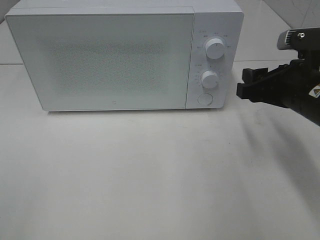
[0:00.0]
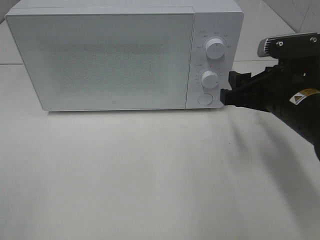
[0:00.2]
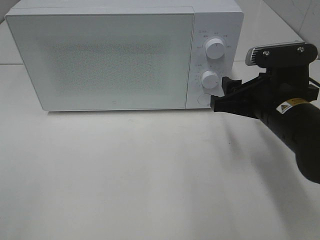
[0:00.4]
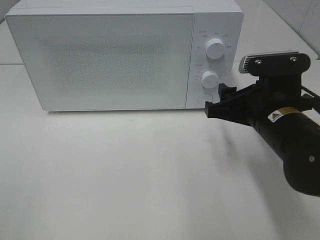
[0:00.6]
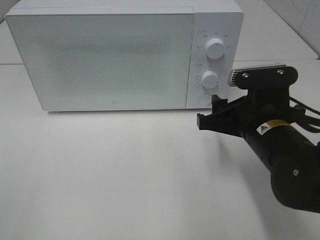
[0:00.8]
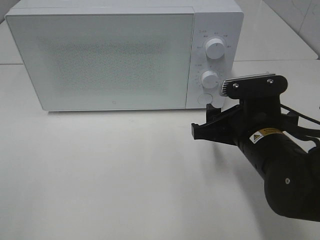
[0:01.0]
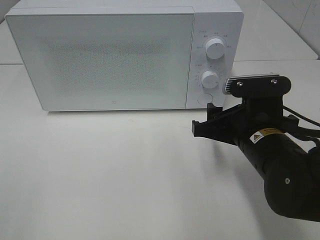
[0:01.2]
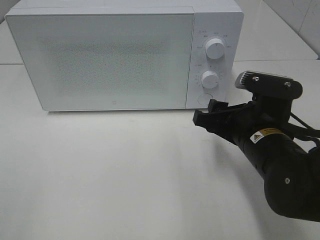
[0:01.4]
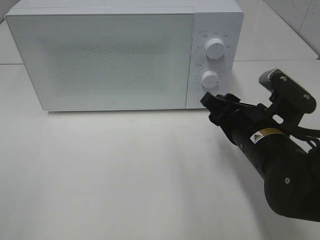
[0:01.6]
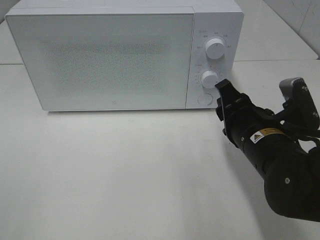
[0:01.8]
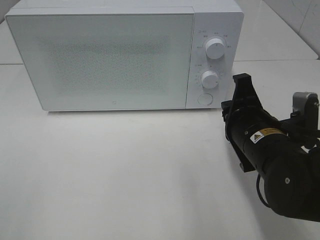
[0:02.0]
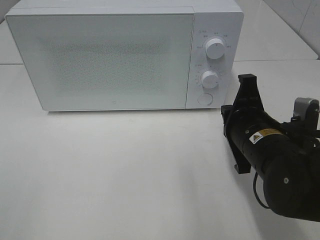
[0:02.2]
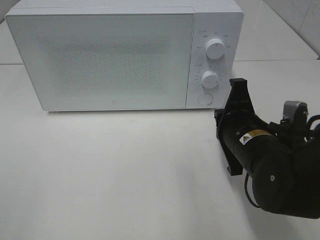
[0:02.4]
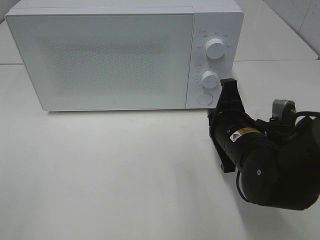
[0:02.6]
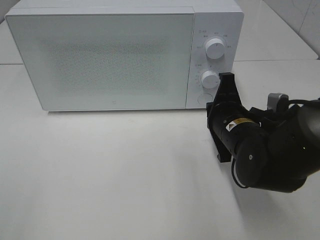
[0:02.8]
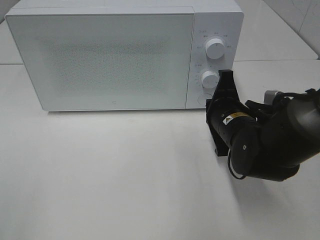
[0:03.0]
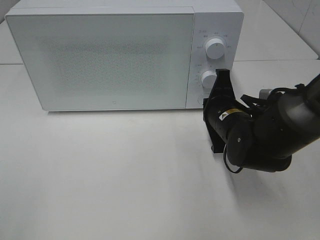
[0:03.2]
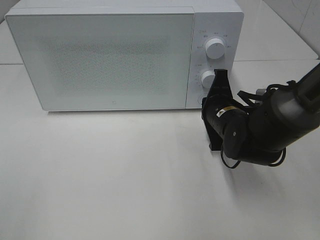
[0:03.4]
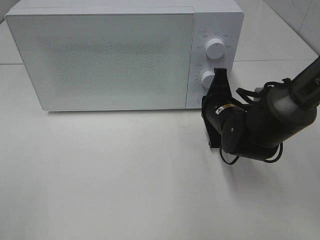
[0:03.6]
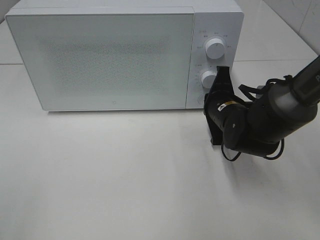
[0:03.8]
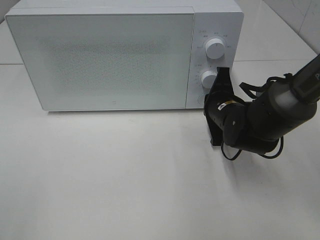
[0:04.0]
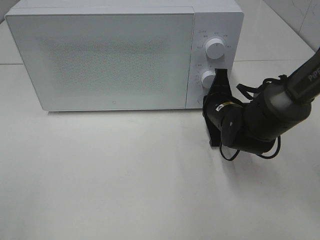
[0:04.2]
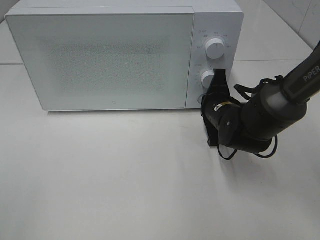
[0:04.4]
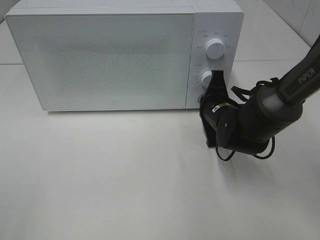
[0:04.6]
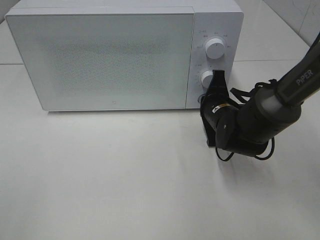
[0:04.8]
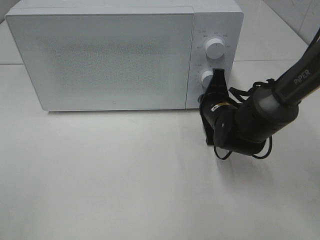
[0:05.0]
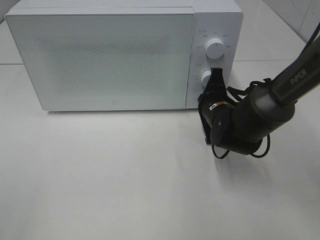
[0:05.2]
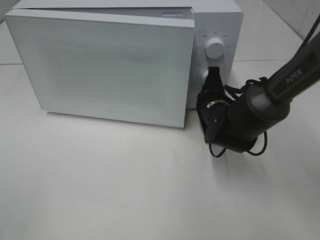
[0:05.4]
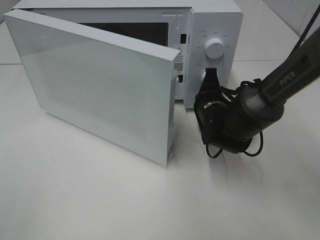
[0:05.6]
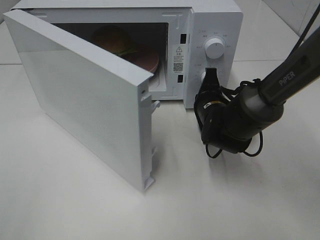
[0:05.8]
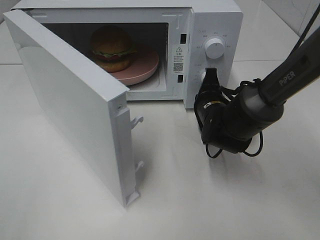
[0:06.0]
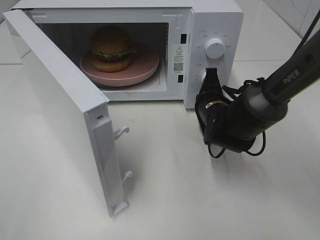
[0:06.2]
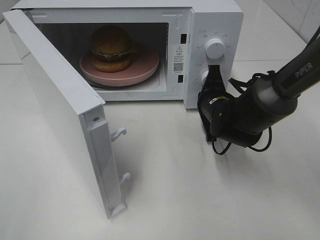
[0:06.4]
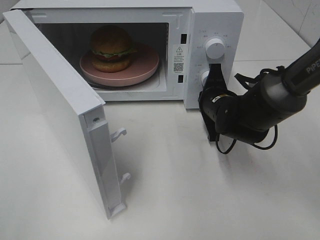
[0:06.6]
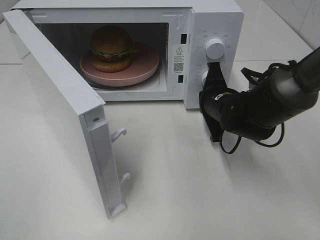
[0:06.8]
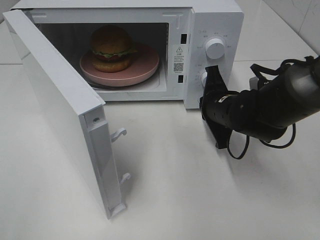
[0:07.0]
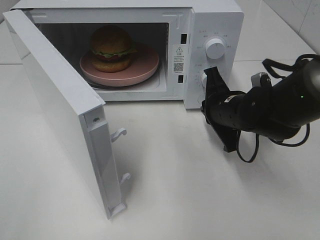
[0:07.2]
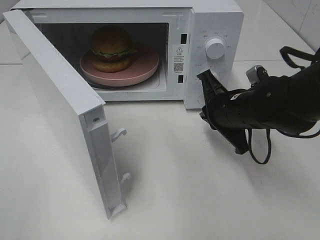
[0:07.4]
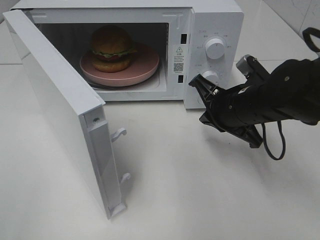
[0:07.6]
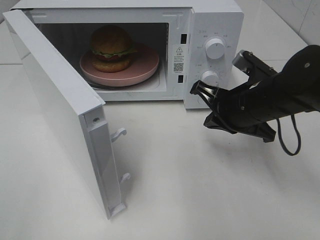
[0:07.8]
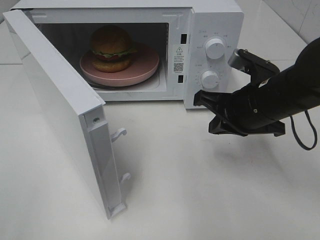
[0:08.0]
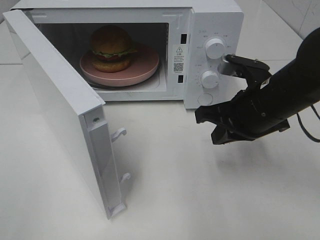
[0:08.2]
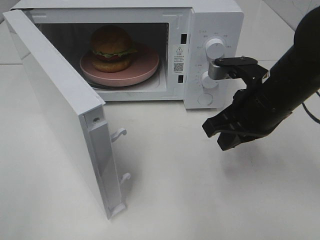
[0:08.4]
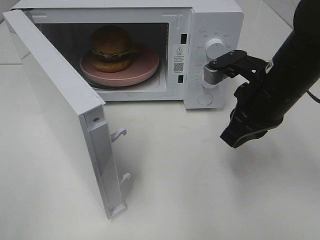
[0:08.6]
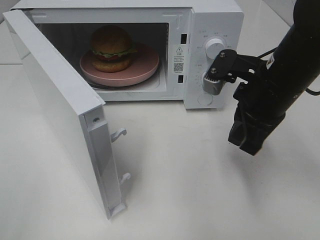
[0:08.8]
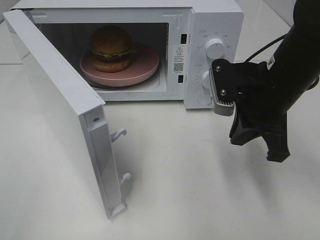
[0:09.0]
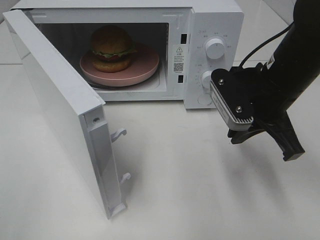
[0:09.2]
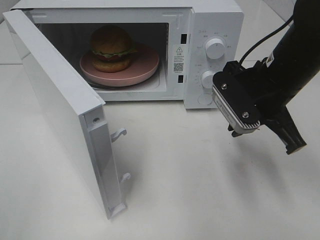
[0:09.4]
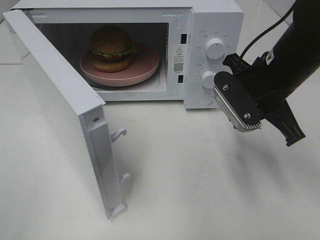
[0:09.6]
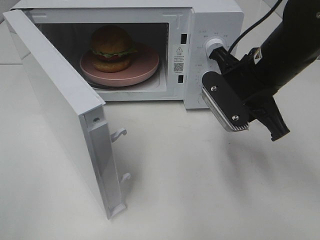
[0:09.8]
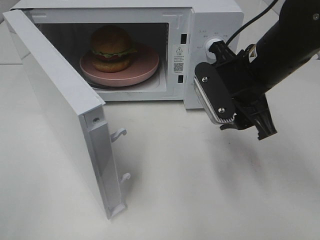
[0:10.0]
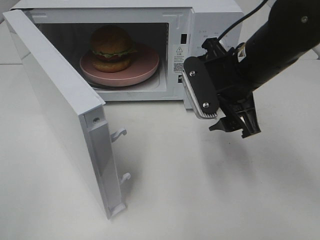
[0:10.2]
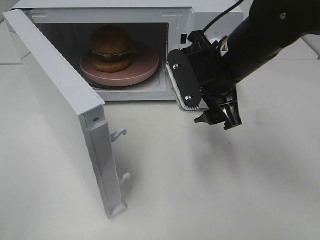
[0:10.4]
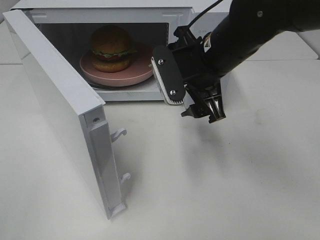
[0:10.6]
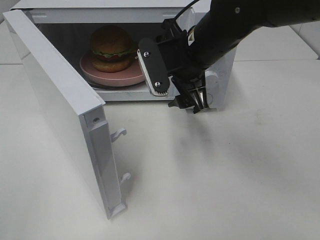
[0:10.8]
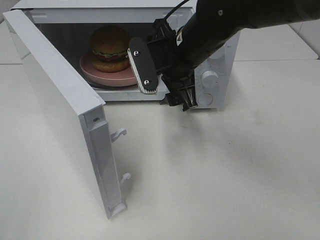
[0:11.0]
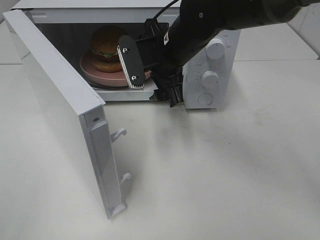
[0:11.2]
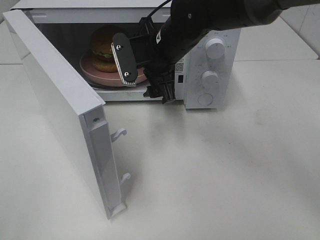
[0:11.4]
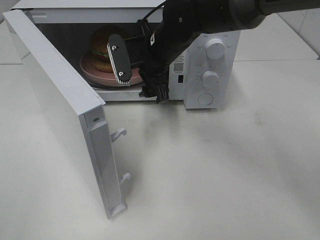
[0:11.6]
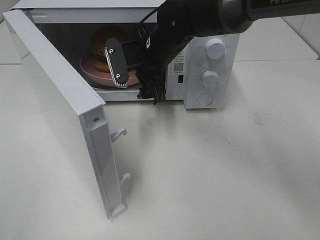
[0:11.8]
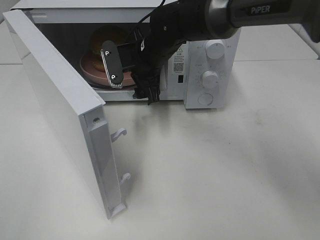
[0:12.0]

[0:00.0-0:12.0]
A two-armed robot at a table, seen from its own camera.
Task of the whole recording: Heat the burger.
Step, 0:00.0 to 0:06.8: Right hand: press the switch.
0:00.0 to 0:01.6: The right gripper travels to the left by roughly 5 cm.
0:01.6 to 0:03.0: The right gripper heads forward, covering about 5 cm, and closes up.
0:03.0 to 0:04.4: The right gripper is displaced forward by some 5 cm.
0:06.0 to 0:07.6: The right gripper is displaced upward and backward by some 10 cm.
0:07.6 to 0:09.0: The right gripper shifts some 5 cm upward.
0:09.0 to 0:10.4: The right gripper goes about 5 cm to the left, and opens up.
0:10.4 to 0:12.0: The right gripper travels forward, to the left and downward by approximately 15 cm.

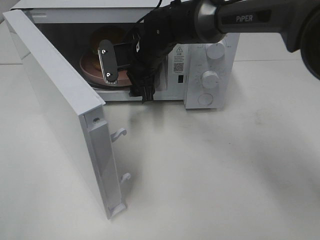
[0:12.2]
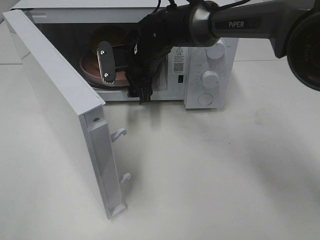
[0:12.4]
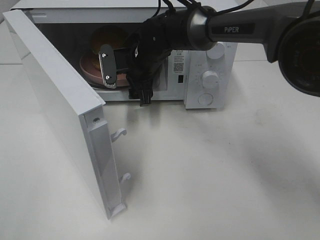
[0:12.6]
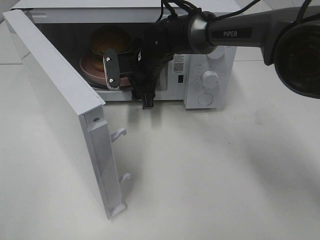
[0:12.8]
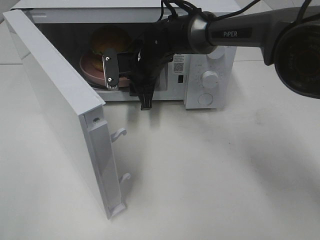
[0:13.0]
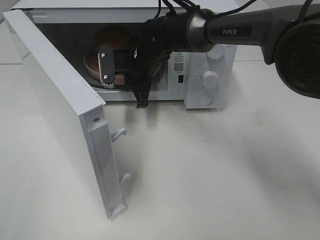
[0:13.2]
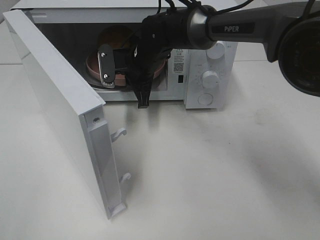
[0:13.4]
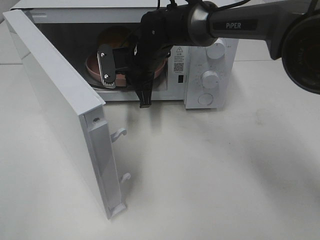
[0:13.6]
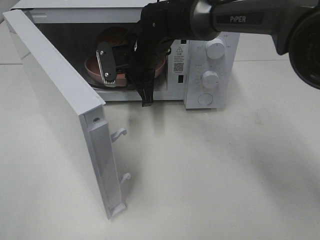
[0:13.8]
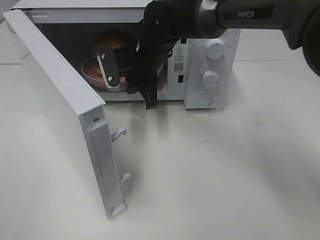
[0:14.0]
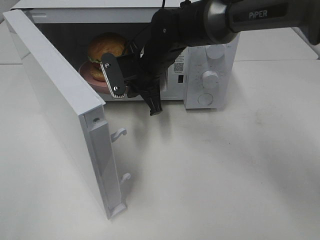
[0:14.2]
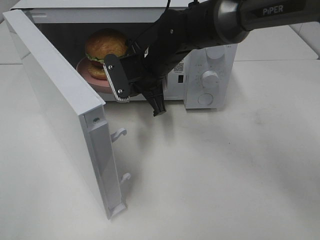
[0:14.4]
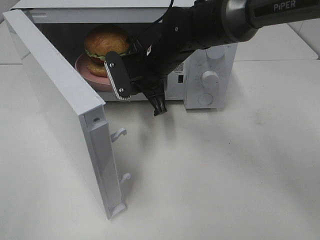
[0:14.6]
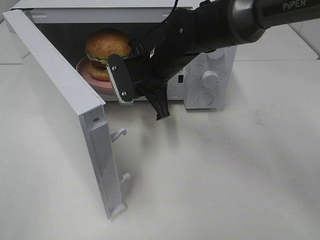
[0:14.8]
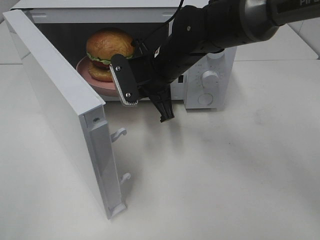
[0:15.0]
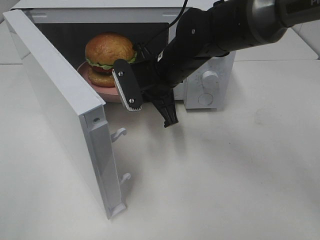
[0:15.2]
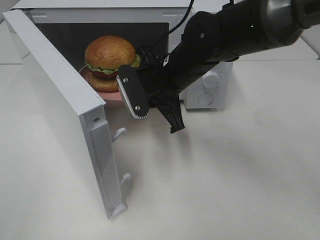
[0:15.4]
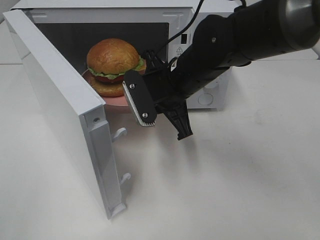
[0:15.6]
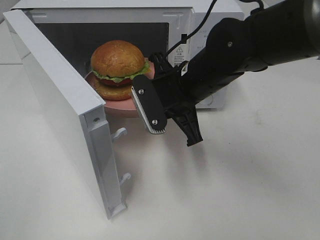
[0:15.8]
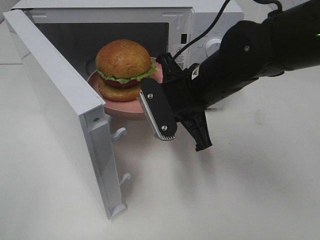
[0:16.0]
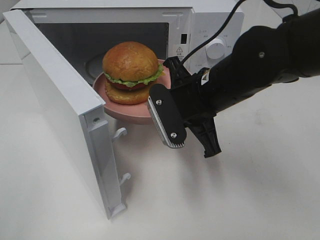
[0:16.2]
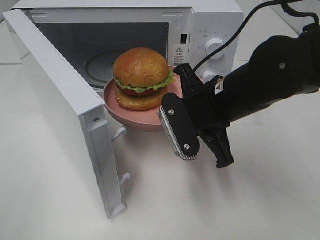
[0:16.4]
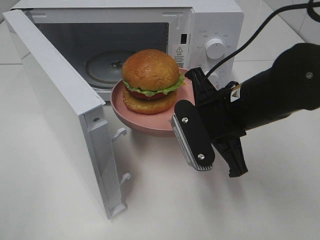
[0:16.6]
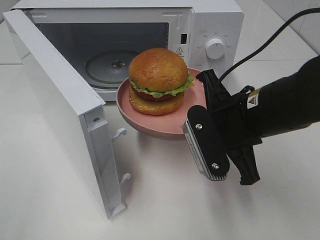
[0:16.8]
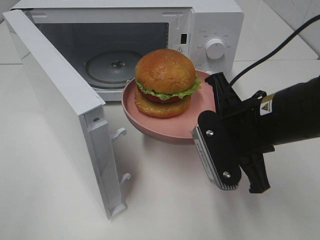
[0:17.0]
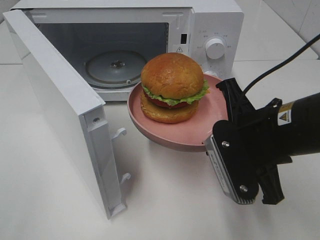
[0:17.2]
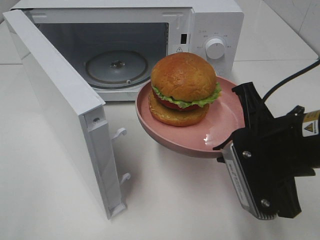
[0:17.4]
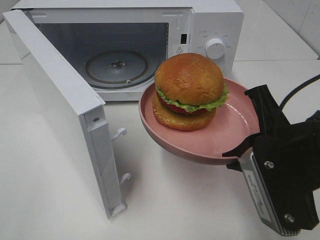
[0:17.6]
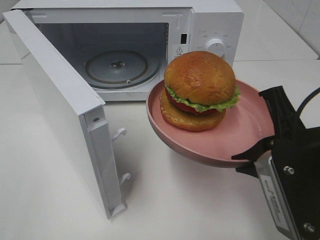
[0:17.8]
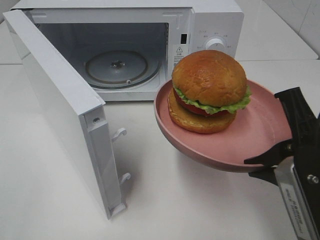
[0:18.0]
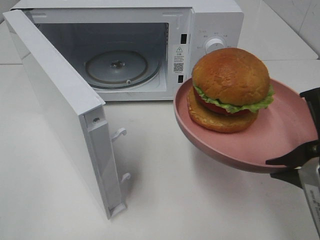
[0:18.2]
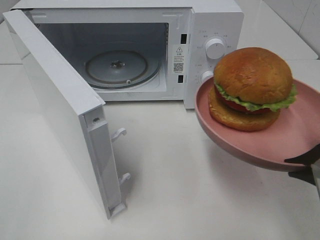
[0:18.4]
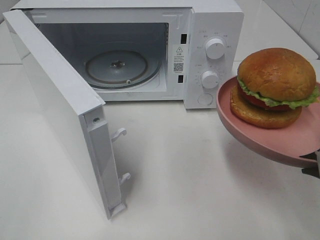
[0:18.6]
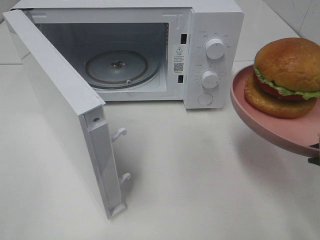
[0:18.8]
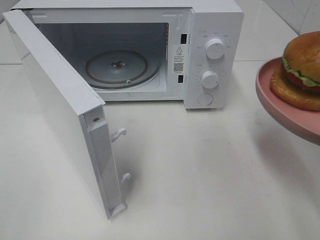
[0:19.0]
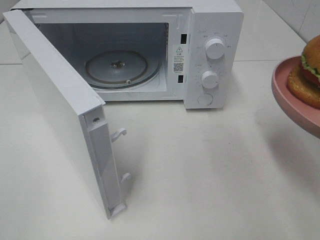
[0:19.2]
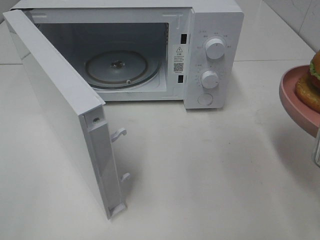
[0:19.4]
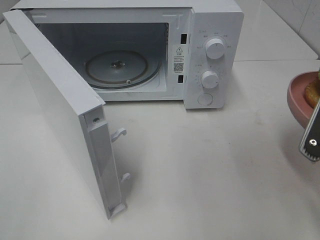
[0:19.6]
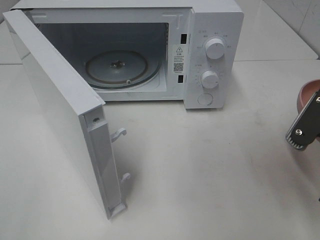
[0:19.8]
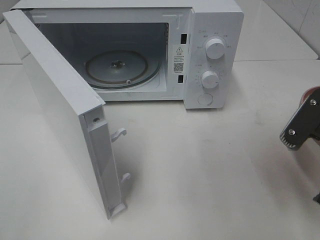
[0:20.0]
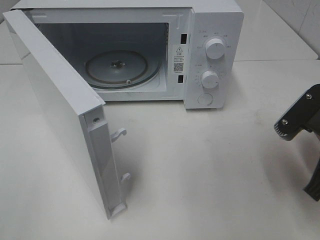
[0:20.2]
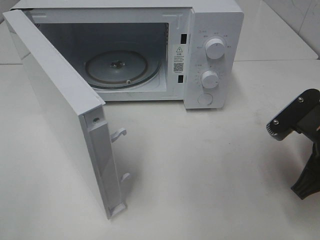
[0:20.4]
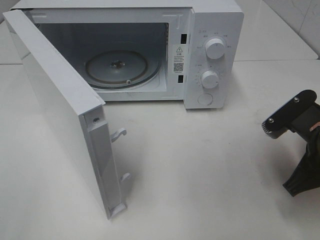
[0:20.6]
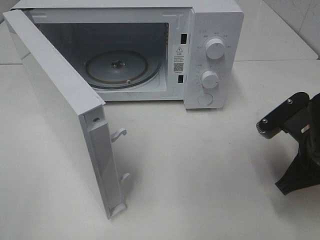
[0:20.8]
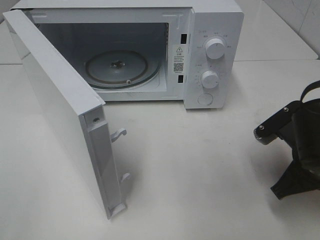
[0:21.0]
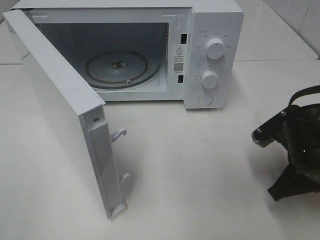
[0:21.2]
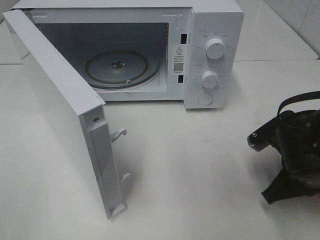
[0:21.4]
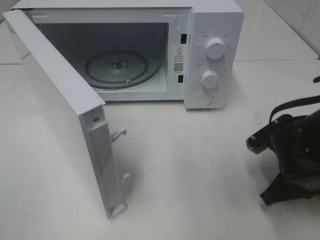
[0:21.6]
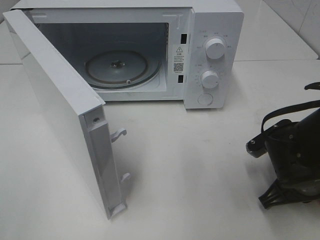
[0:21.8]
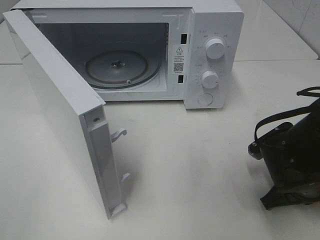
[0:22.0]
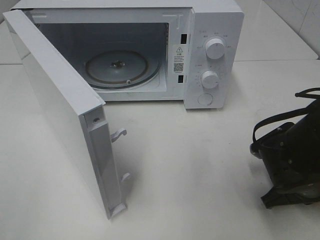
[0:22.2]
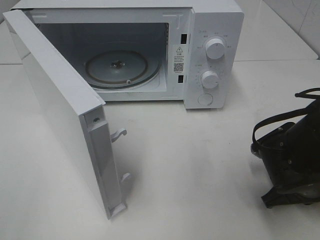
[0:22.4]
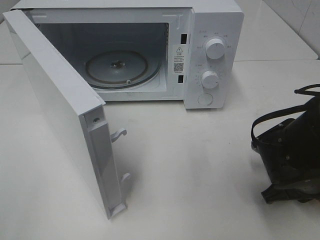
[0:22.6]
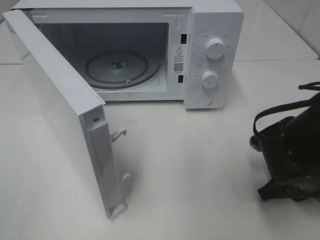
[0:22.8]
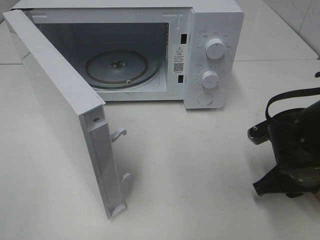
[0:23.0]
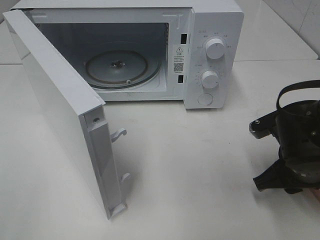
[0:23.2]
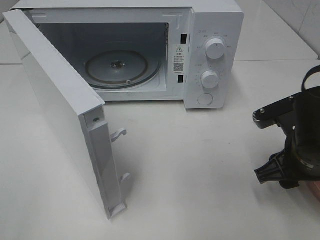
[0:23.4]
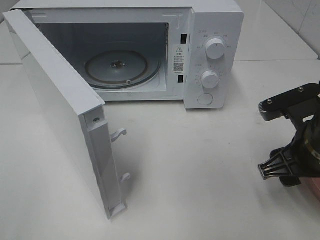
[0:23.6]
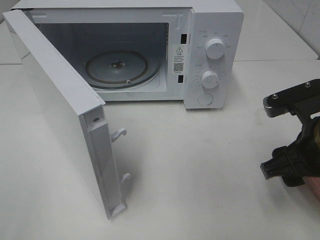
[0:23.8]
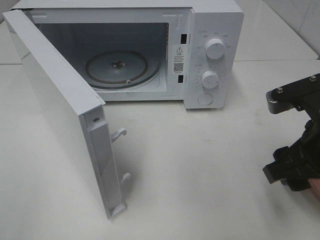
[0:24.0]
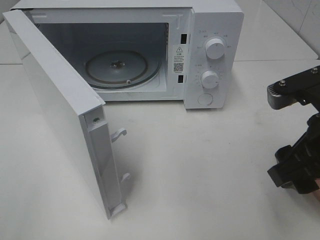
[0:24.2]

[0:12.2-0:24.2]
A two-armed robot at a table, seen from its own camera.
Task of the whole recording: Heat the burger.
Step, 0:13.2 to 0:22.8: Right hand: place the plate on the table.
0:12.2 to 0:13.8: The right gripper closes its fingers.
0:13.8 to 0:15.2: The right gripper shifts some 5 cm backward.
0:15.2 to 0:16.6: The right gripper heads backward and to the right, covering approximately 15 cm.
0:16.6 to 0:18.2: The right gripper travels backward and to the right by approximately 15 cm.
0:18.2 to 0:19.8: The right gripper shifts by some 5 cm.
0:19.8 to 0:21.2: The right gripper heads downward, covering some 10 cm.
0:21.2 to 0:22.6: The right gripper opens up.
0:22.6 to 0:24.2: The right gripper travels upward by approximately 15 cm, and opens up.
